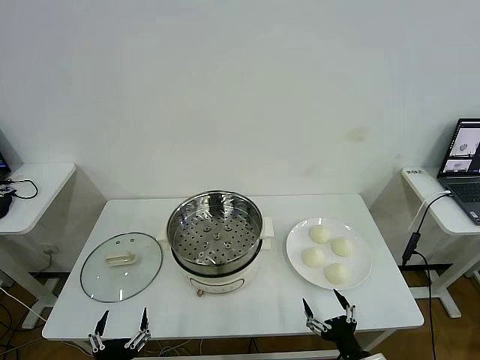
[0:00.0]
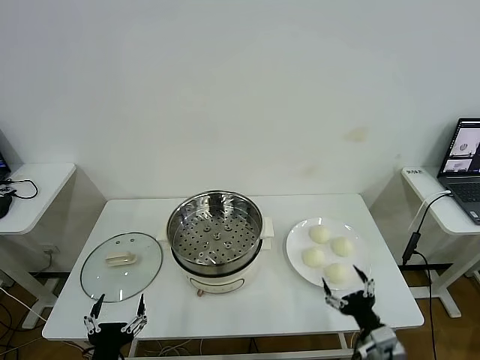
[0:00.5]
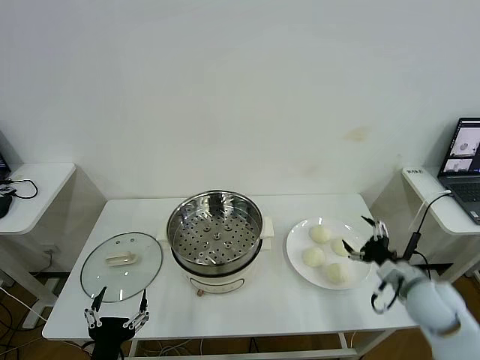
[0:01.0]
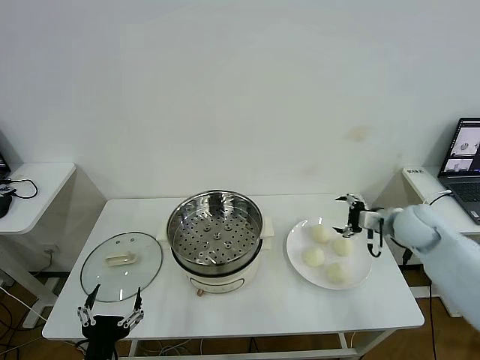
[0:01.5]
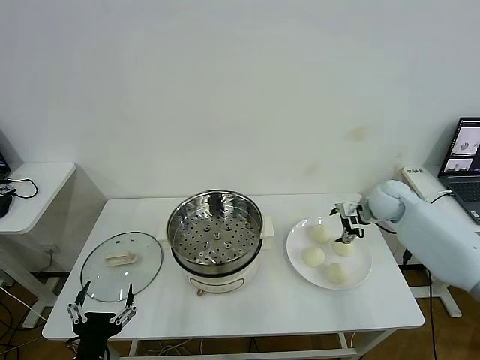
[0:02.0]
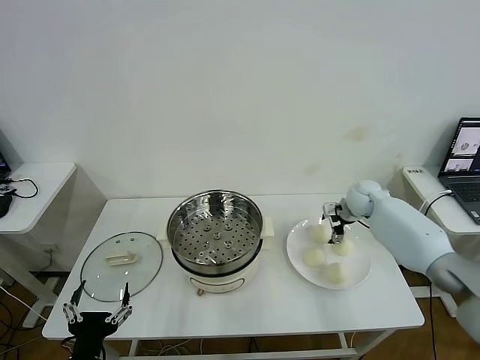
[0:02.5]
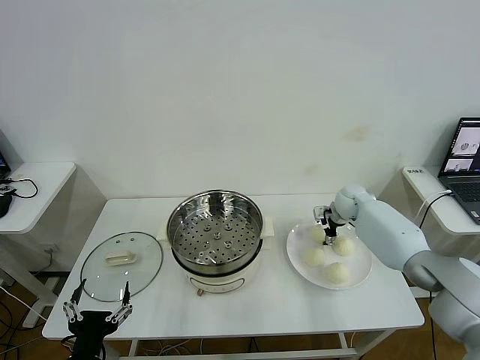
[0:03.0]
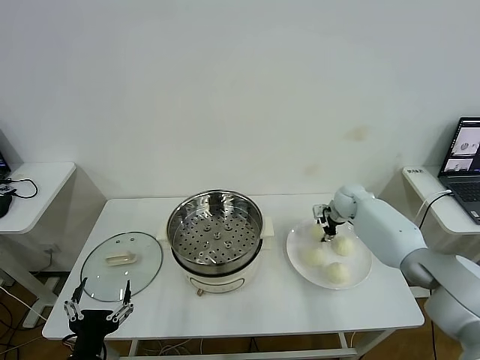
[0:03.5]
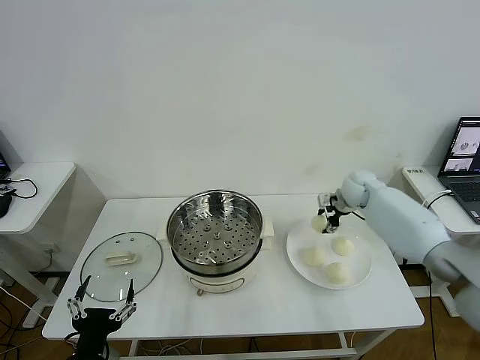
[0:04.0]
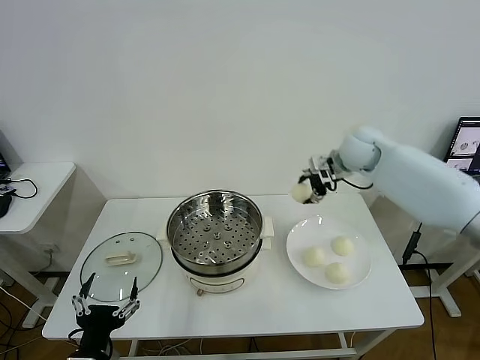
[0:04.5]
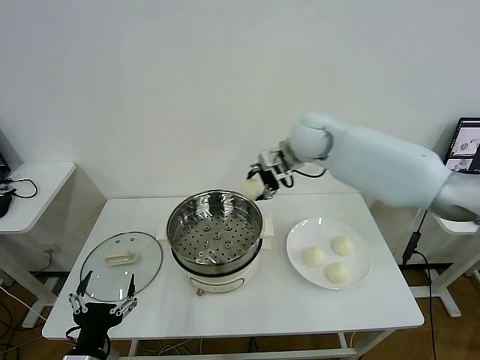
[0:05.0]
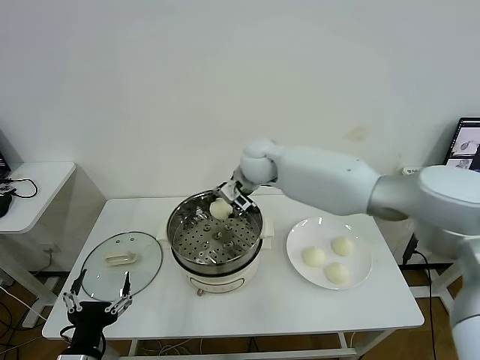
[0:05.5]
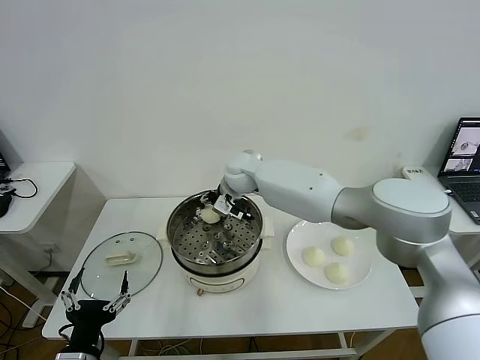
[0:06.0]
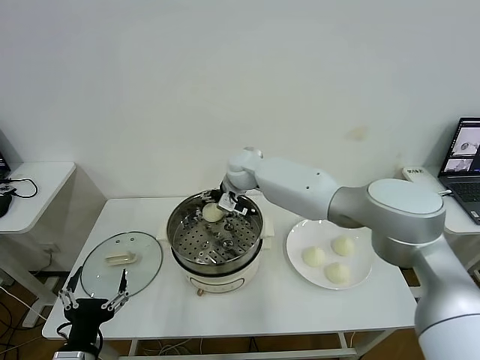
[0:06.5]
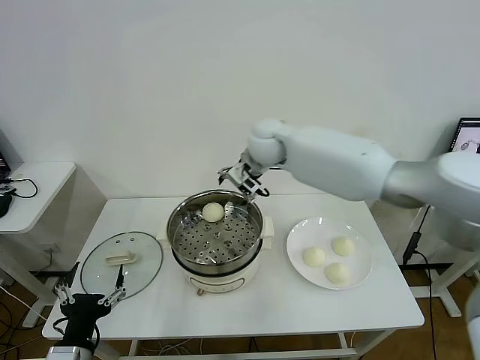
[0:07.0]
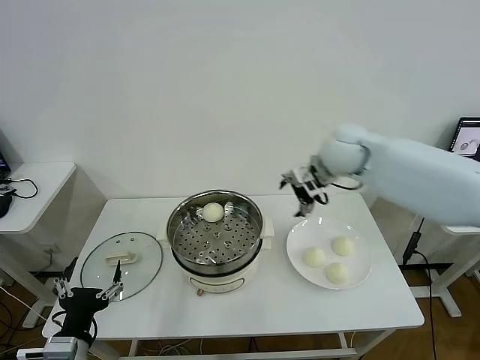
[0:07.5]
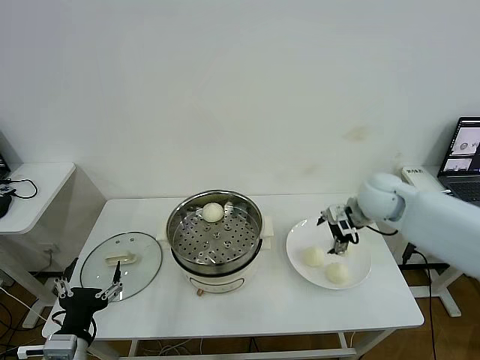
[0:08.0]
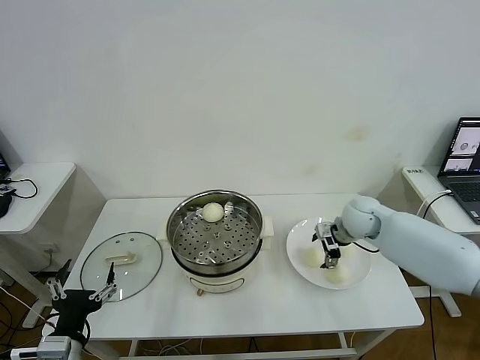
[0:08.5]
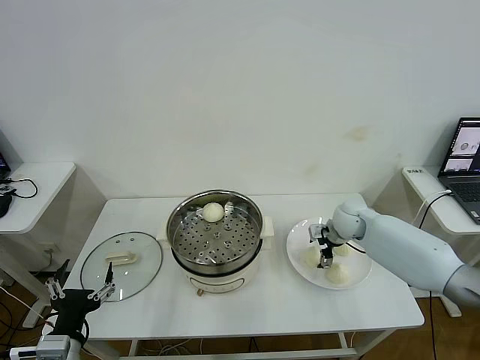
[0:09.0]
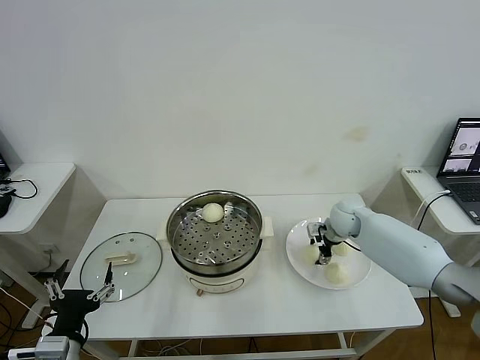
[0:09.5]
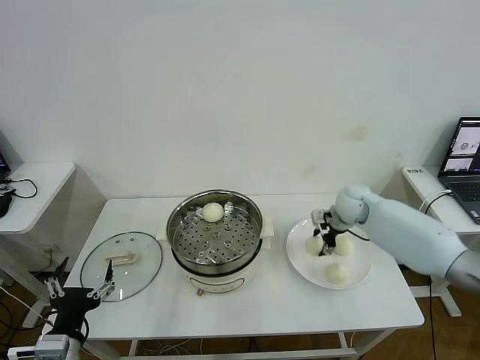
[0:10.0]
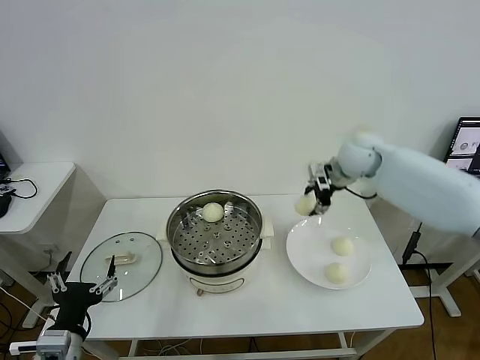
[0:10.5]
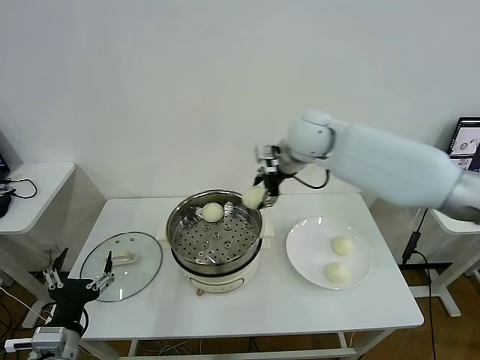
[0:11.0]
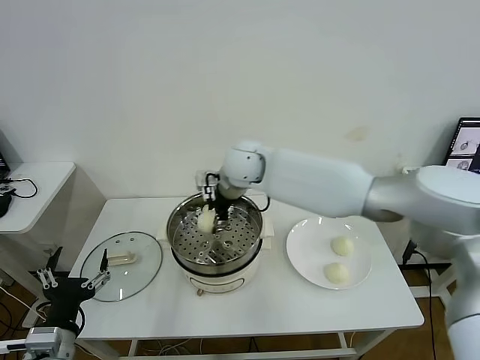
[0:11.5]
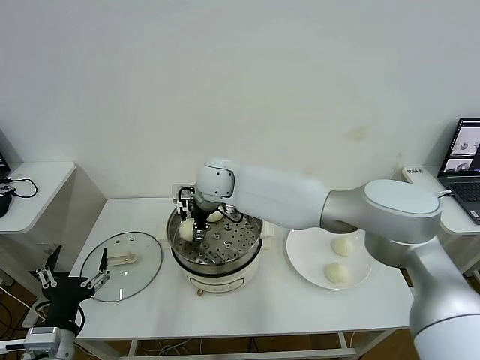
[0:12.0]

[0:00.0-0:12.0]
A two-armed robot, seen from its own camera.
Task of the whole recording: take steamed baozi put them in steamer then cover it.
Step, 0.0 to 3.0 s: Grasp the baozi in the plate with right gripper.
Step, 3.5 to 6.5 s: Place the baozi on the steamer with right gripper.
Step, 7.0 to 9.5 s: Grasp the baozi in the plate with right gripper.
2.0 to 4.0 s: The right gripper ends up approximately 5 cm from where it was, and closes its fingers.
4.0 to 6.0 s: The right gripper travels to the left by about 30 cm.
6.0 to 8.0 s: The right gripper is displaced to the right by roughly 30 cm, and opens up.
8.0 to 10.0 s: The right gripper goes roughly 5 cm forward, and closes.
10.0 to 12.0 s: The right gripper is displaced to the left by some 35 cm.

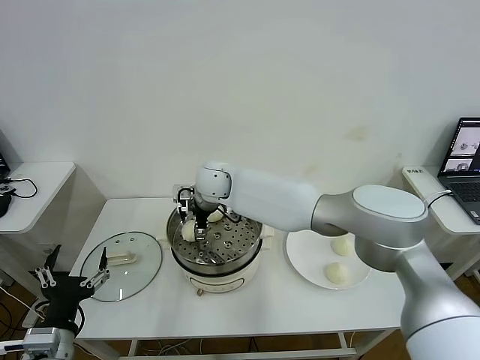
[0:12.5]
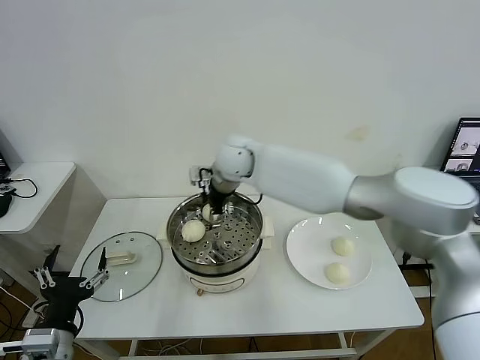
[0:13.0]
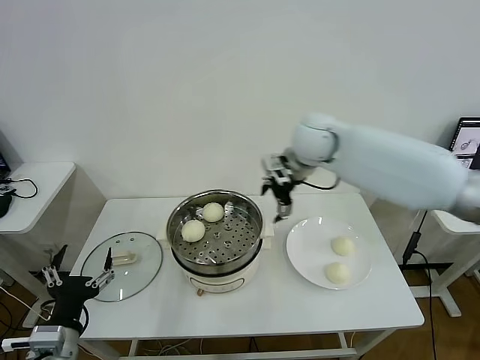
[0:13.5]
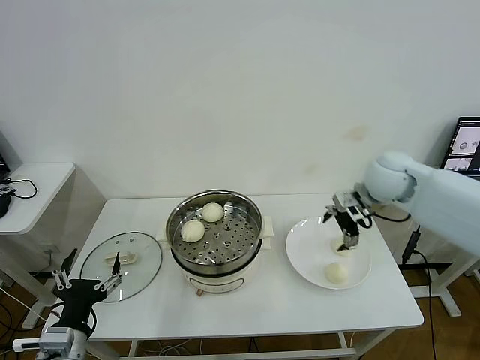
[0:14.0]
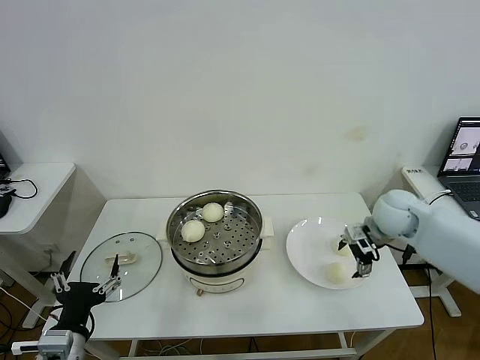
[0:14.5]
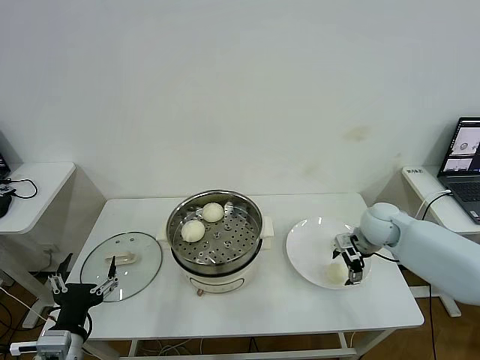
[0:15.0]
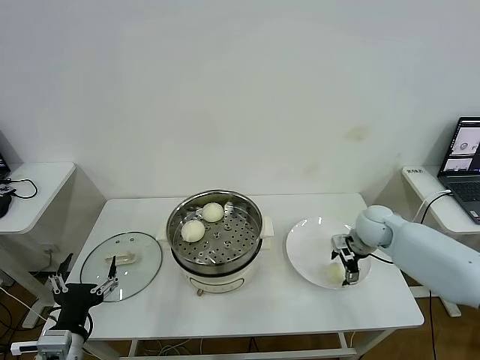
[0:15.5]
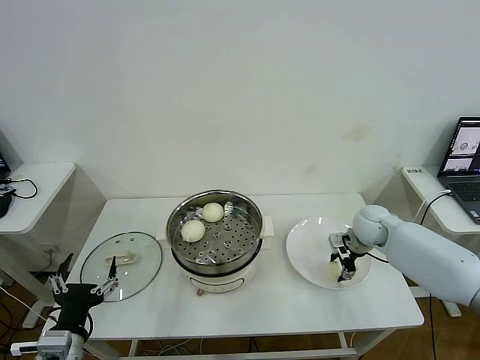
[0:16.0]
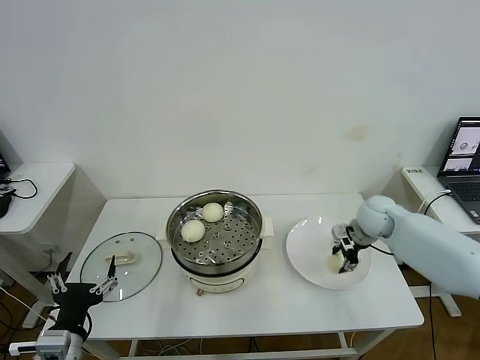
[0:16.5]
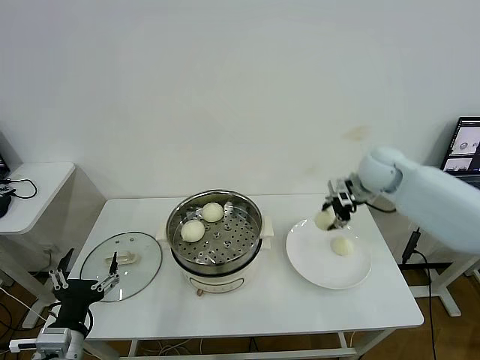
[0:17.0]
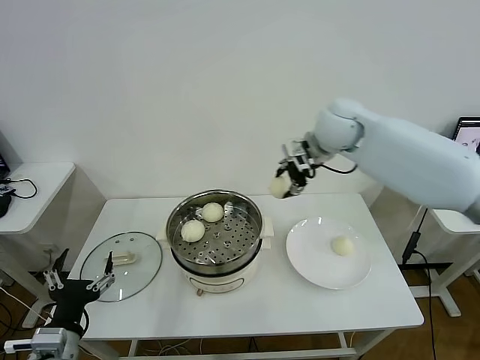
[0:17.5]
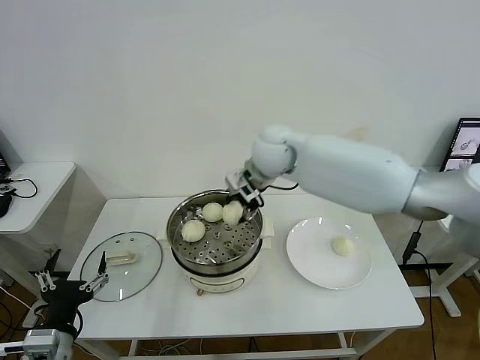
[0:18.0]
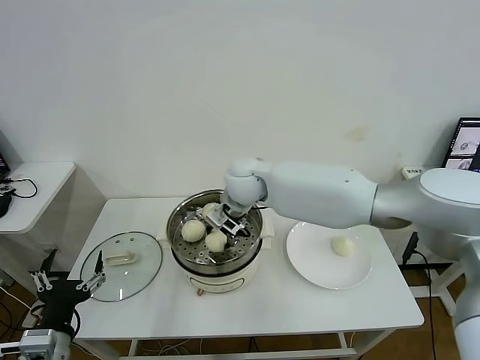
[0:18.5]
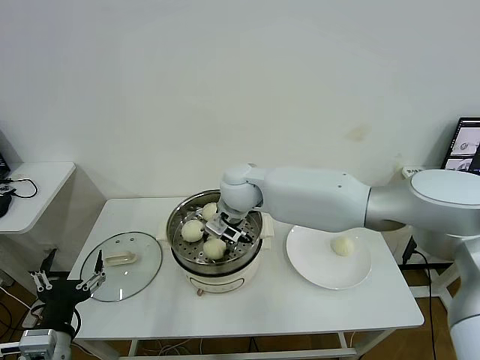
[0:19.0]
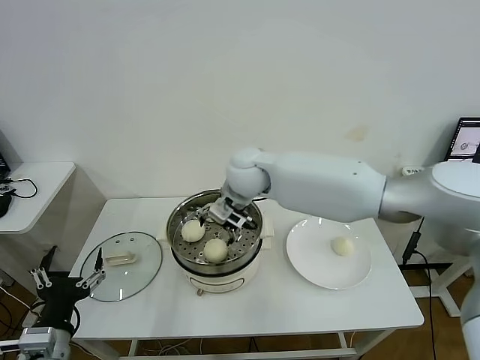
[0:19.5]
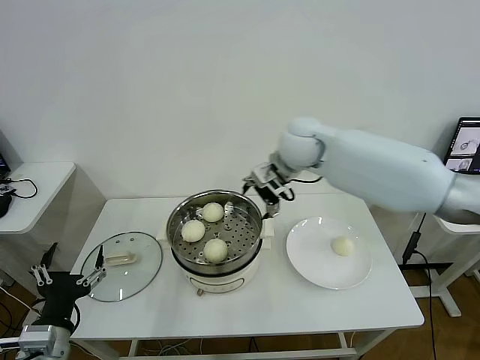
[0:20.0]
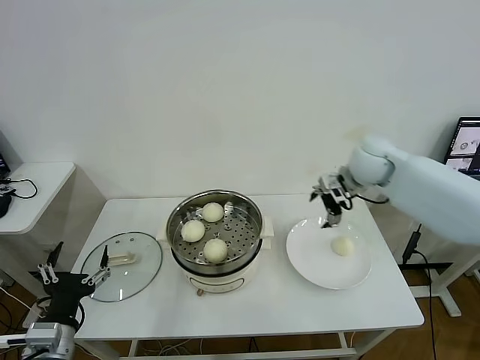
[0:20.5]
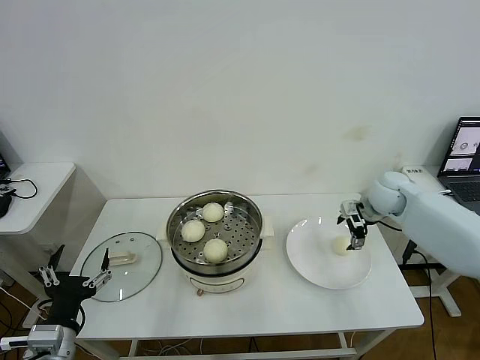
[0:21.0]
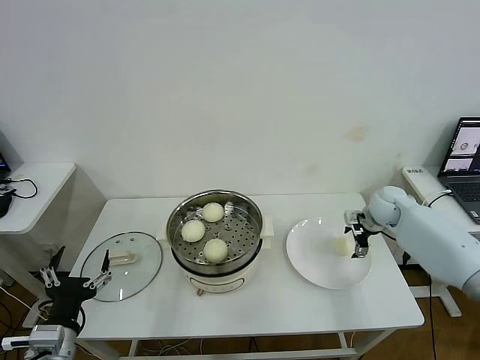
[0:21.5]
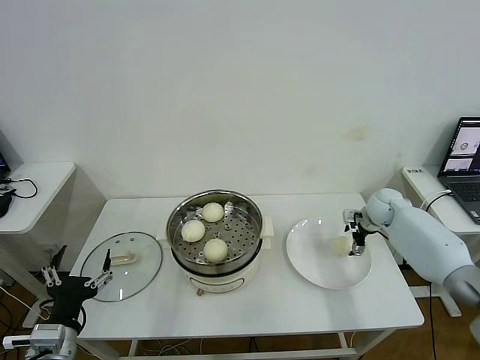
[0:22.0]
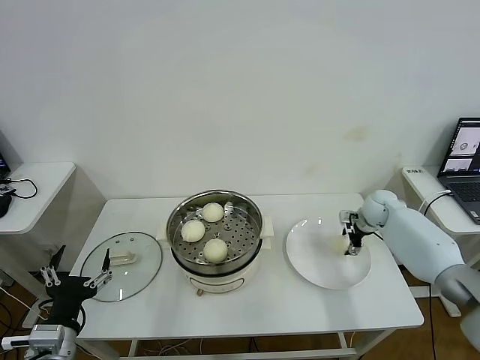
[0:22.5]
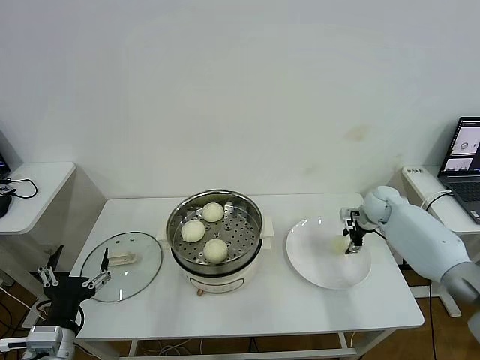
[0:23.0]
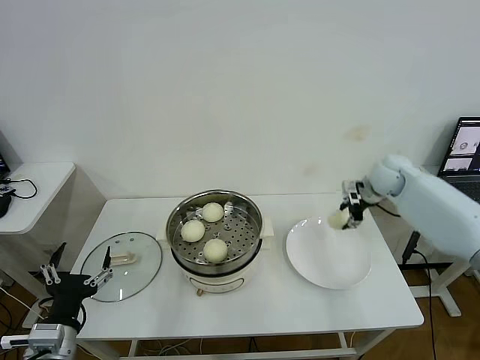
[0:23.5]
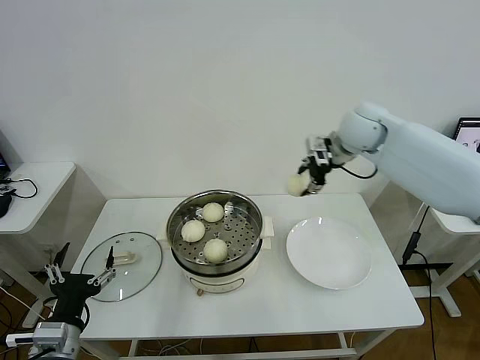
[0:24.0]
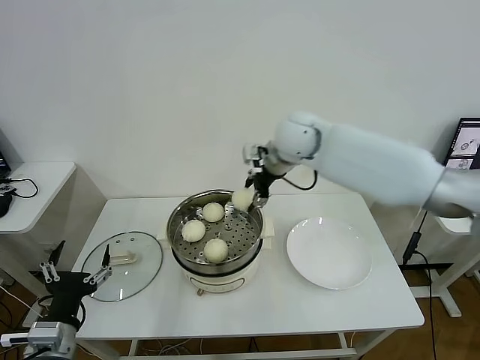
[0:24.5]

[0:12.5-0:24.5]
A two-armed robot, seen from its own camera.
Task of the whole recording: take steamed baozi put them in steamer then cover it.
Step, 13.0 to 16.0 s: Grasp the baozi in the plate with right gripper.
Step, 16.5 to 19.0 s: Place the baozi on the steamer with right gripper.
Step, 19.5 to 22.5 s: Grasp the baozi in the plate with right gripper.
12.5 to 14.5 s: The right gripper goes approximately 40 cm to the right.
14.5 to 16.5 s: The right gripper closes up.
16.5 to 18.5 s: The right gripper shifts approximately 35 cm to the left.
18.5 to 20.5 s: The right gripper moves to the right, about 30 cm, and opens up.
20.5 to 22.5 s: The right gripper moves downward and to the right, about 20 cm, and closes its fingers.
22.5 to 24.5 s: The right gripper moves to the left and upward, about 35 cm.

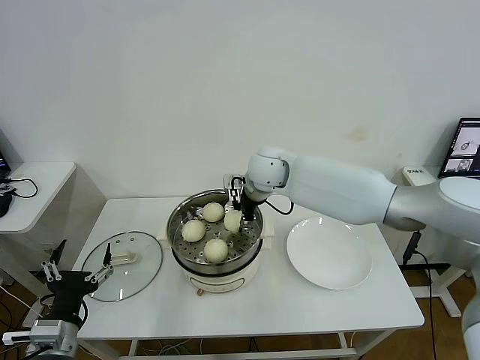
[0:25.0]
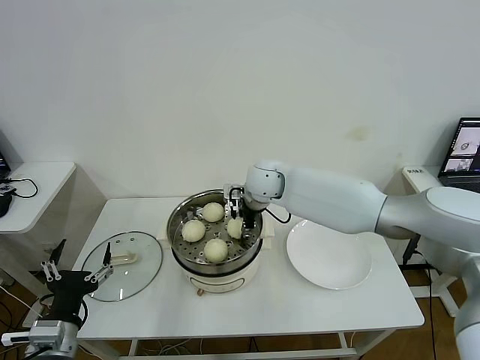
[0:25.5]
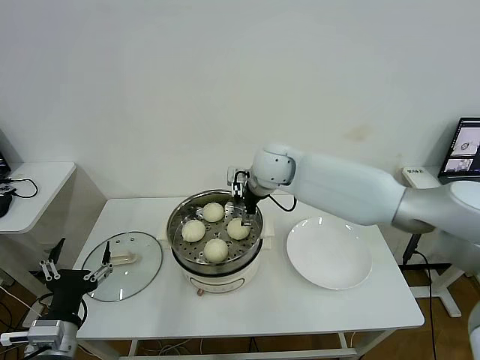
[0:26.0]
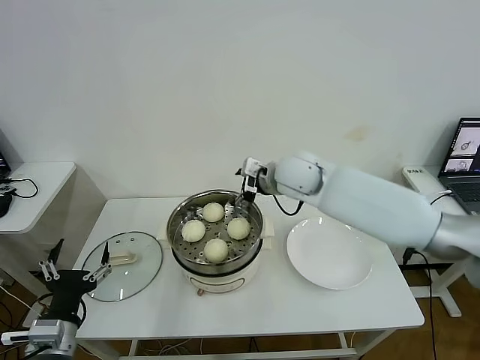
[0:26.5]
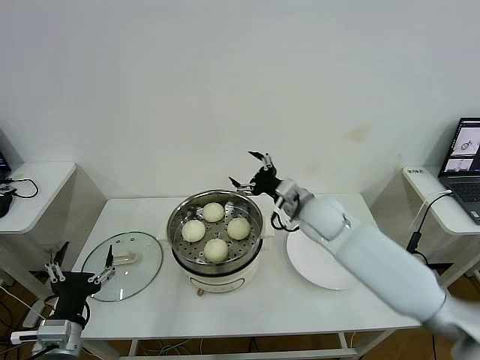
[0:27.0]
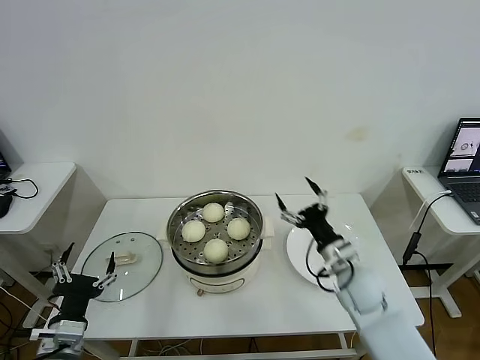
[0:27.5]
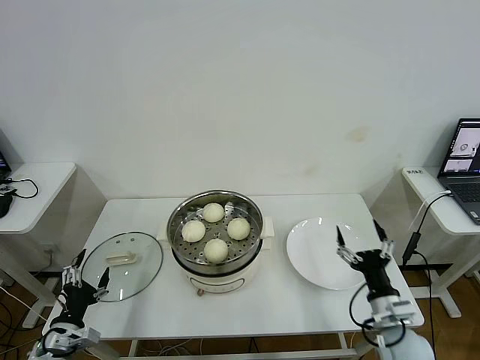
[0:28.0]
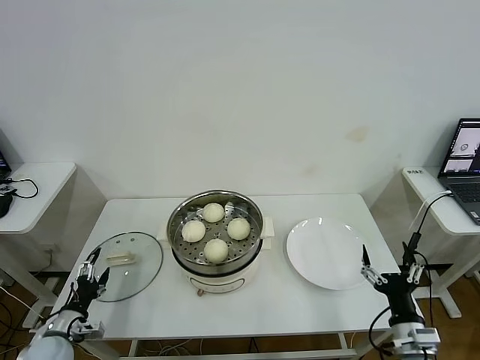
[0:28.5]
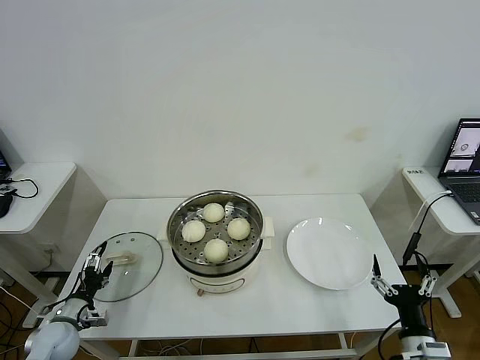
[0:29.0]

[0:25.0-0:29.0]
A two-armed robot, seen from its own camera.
Task of the whole recording: take steamed baozi put them in steamer then cover it.
25.0 to 27.0 s: The right gripper heads to the right, backward and downward, covering some 15 cm, and opens.
27.0 to 29.0 s: The right gripper is displaced backward, to the right and downward by some 40 cm. Meanwhile the left gripper goes approximately 25 cm downward, to the left and forward.
